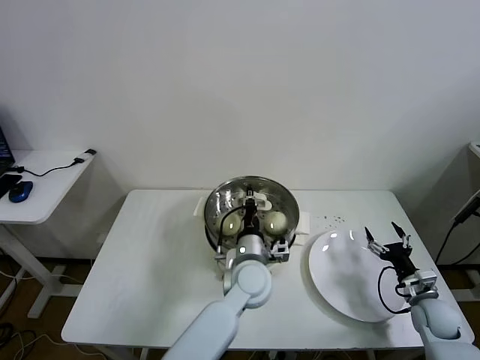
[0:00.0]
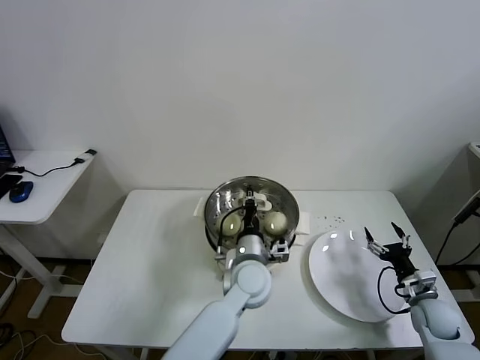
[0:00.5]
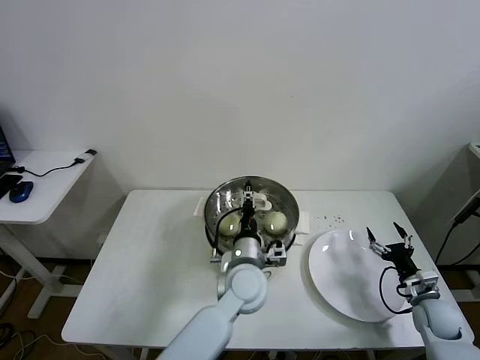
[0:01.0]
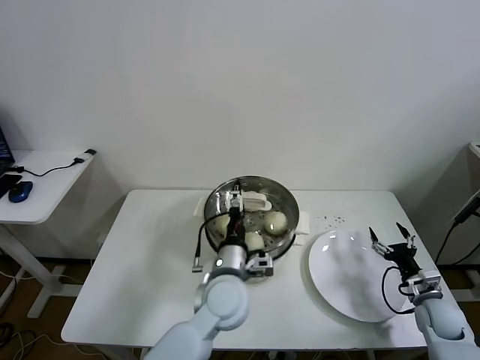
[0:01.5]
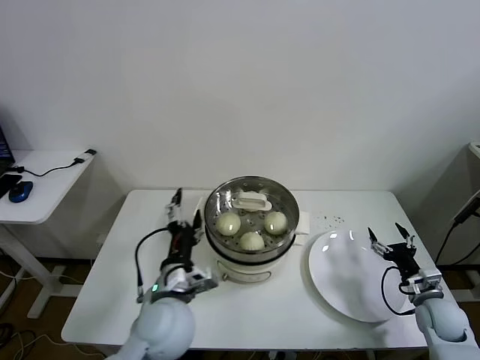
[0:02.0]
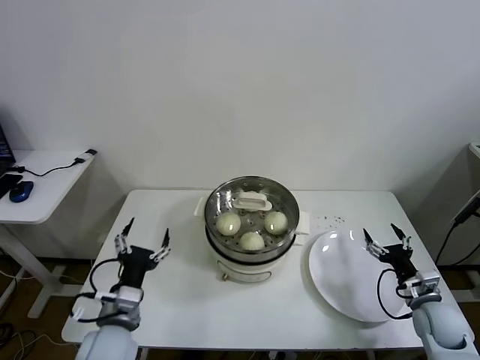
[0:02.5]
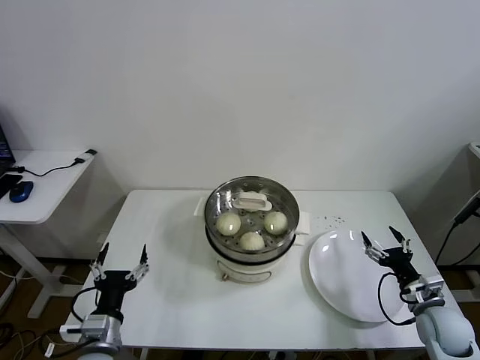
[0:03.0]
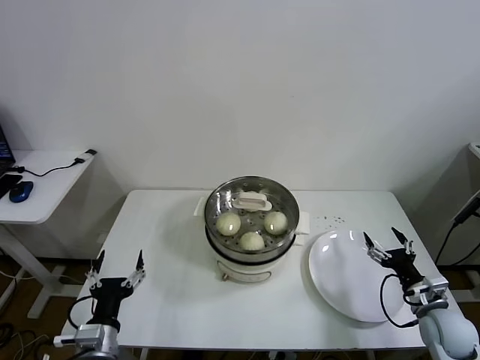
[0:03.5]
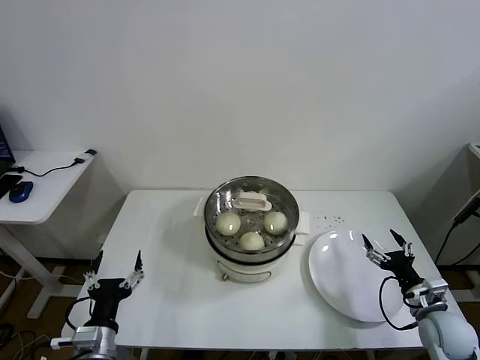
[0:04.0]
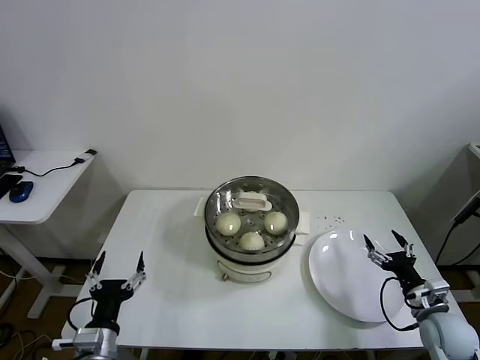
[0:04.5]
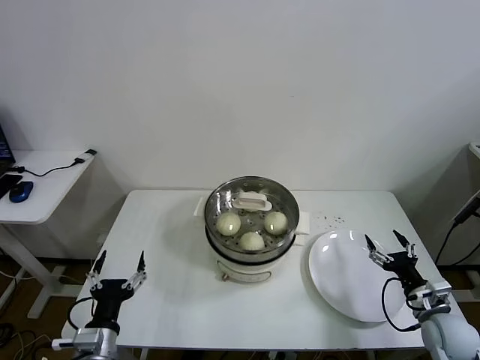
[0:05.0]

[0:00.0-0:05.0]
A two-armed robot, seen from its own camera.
Task of the whole recording: take steamed baozi put them in steamer.
0:00.0 to 0:02.5: The left gripper travels to the left and backward by roughly 30 cm, and opens up.
0:02.5 to 0:05.0: The left gripper shifts approximately 10 cm backward and downward.

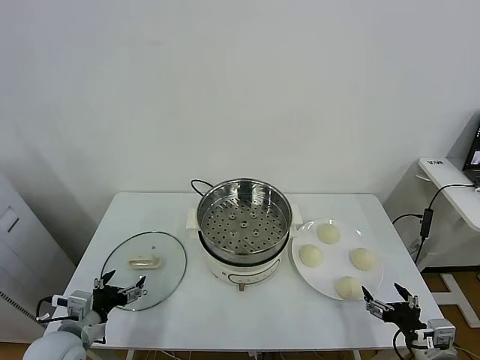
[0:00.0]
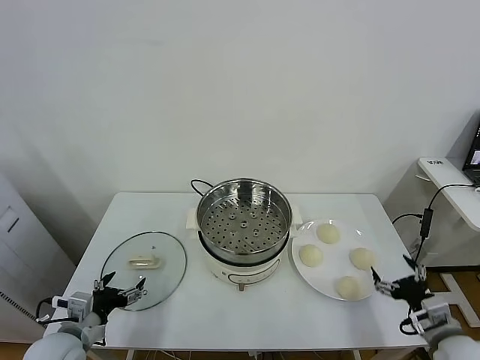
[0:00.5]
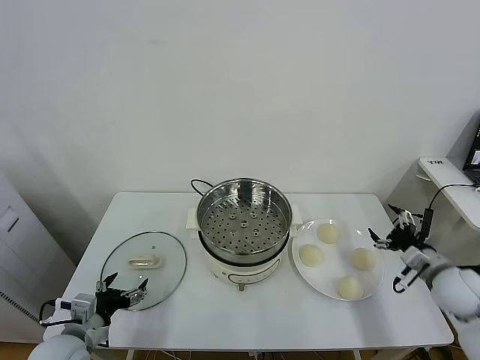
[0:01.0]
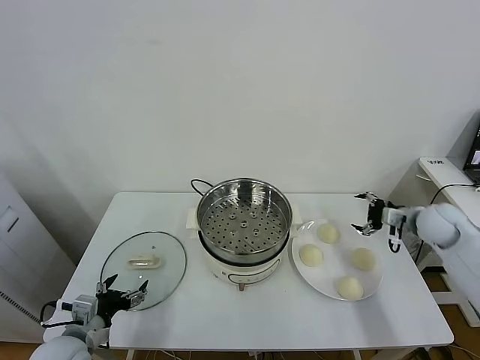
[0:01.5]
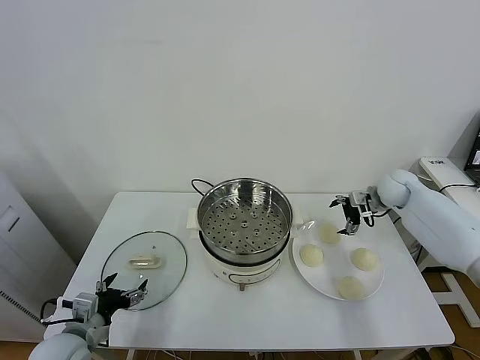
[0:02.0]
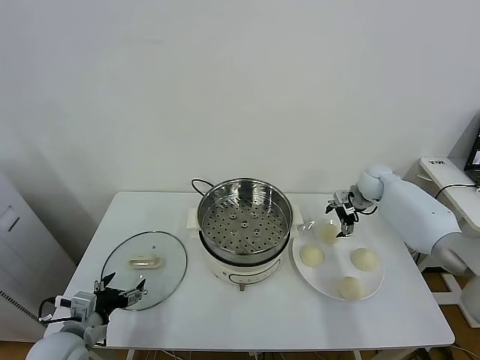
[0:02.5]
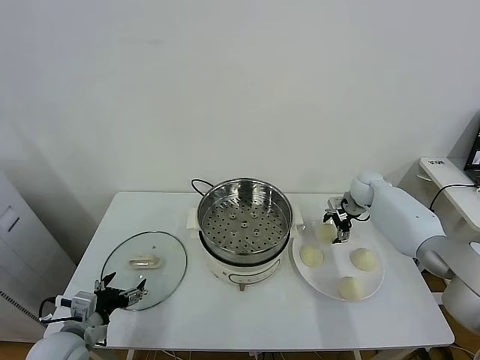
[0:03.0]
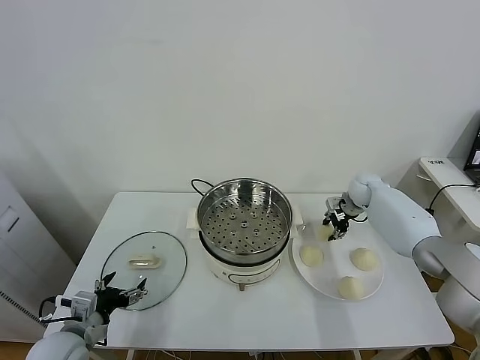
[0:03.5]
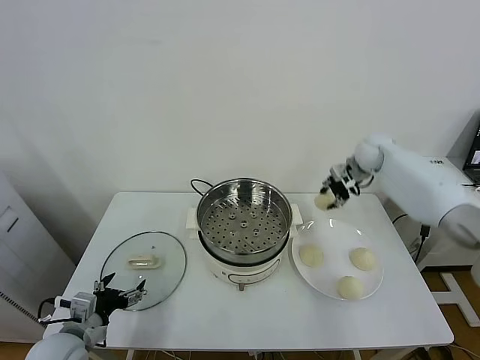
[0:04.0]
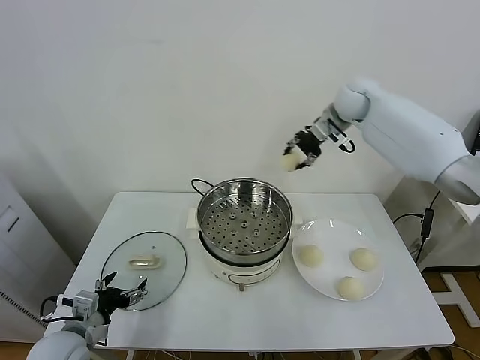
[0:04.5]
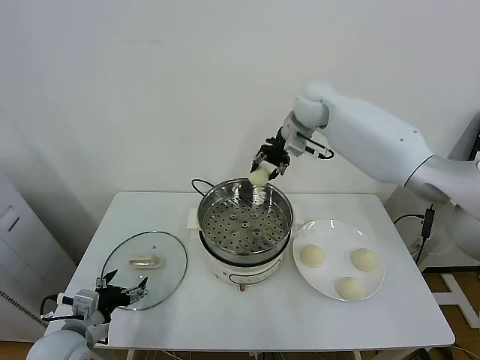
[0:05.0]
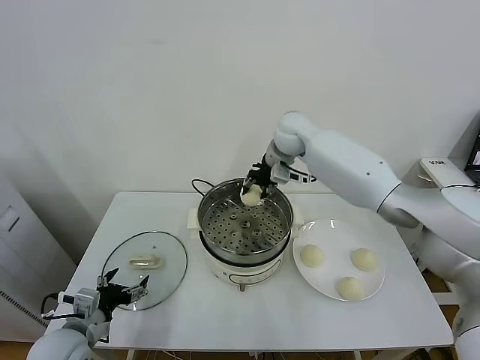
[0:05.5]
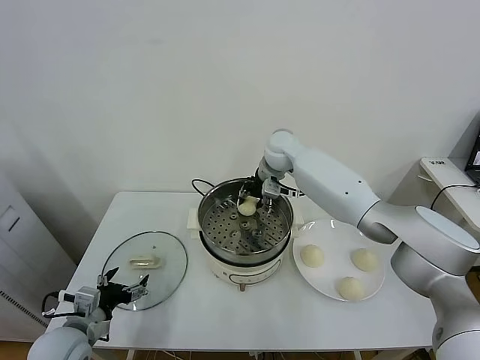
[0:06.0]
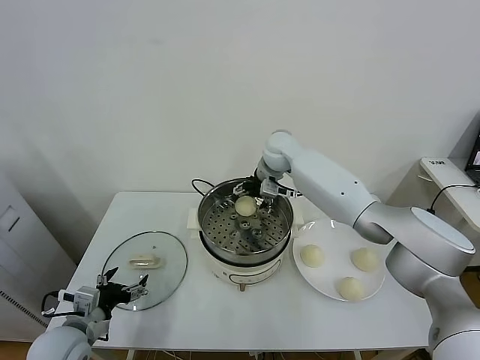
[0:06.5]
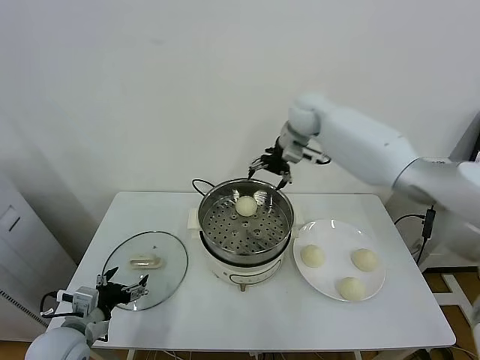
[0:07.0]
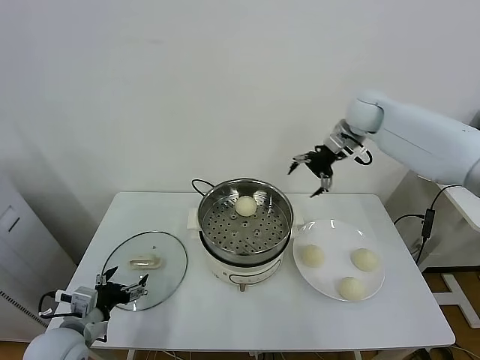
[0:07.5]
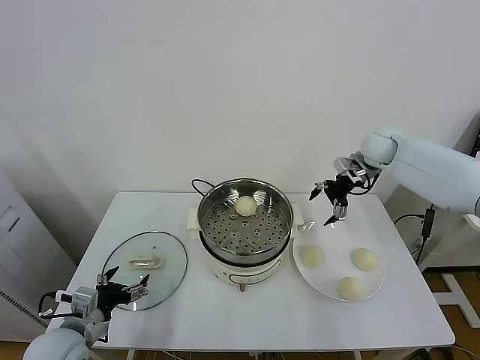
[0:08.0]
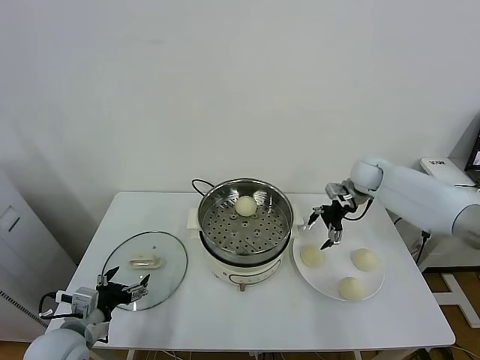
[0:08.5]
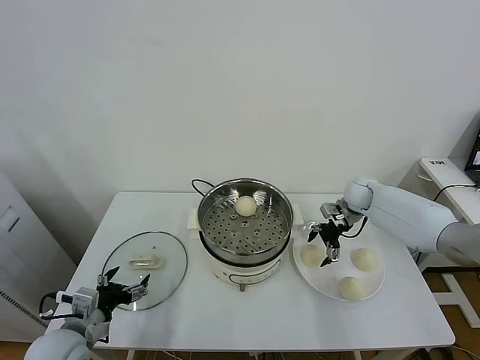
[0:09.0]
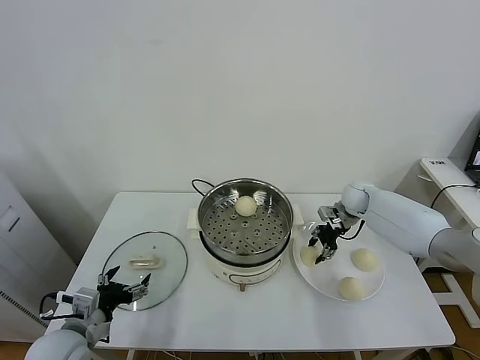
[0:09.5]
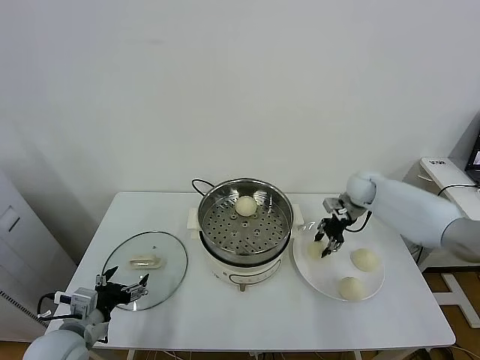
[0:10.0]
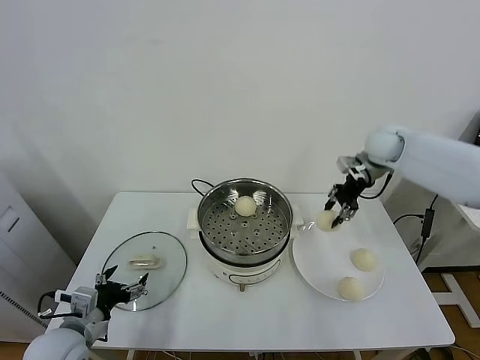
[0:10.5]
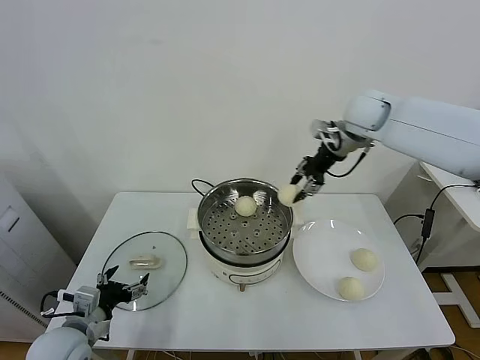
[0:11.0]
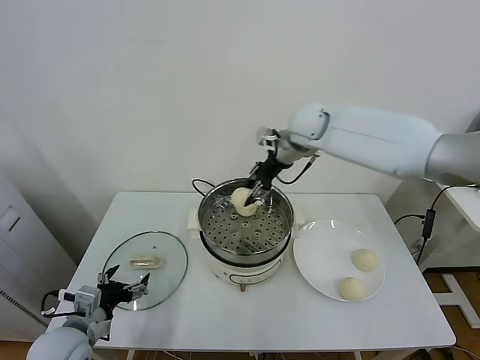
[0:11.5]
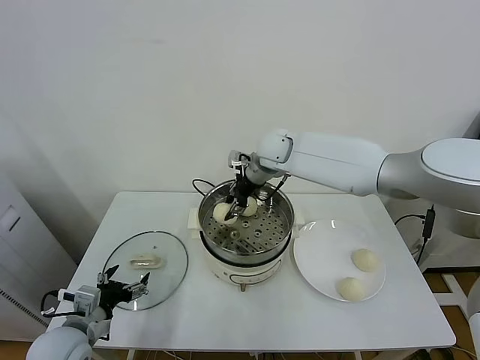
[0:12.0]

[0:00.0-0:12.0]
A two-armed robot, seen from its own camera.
Task of the whole recording: take steamed baozi put them in steamer.
Step, 0:00.0 to 0:03.0: Grasp the baozi in the plate with right gripper.
Step, 0:03.5 to 0:06.5: Place the baozi on the steamer with right gripper.
Step, 0:07.0 to 0:09.0: Grasp the baozi in the plate with right gripper.
0:02.0 to 0:04.0: The right gripper moves upward, to the left and forward, approximately 10 cm, and closes up.
0:04.0 to 0:06.0: The right gripper is displaced to the left by about 25 cm.
0:06.0 to 0:08.0: The right gripper travels to the right by some 25 cm, and opens its fingers.
0:08.0 to 0:10.0: The right gripper travels downward by some 10 cm, and closes.
0:10.0 to 0:12.0: The right gripper goes some 30 cm to the left and upward.

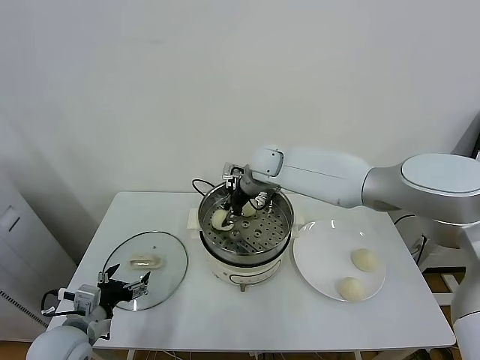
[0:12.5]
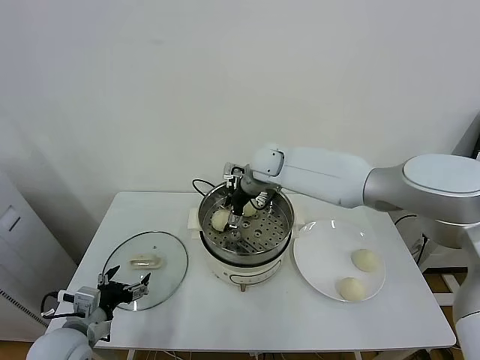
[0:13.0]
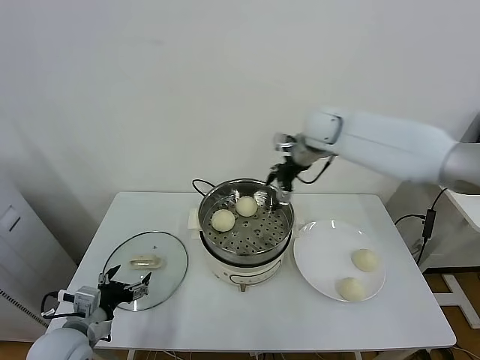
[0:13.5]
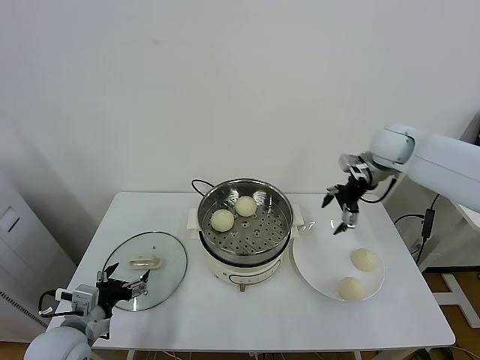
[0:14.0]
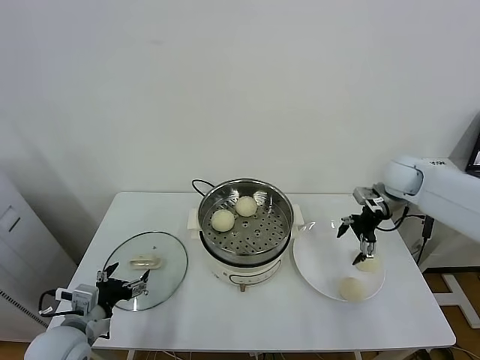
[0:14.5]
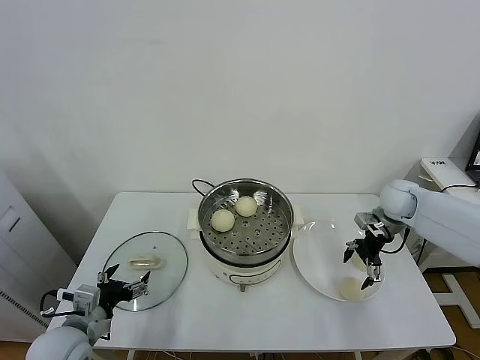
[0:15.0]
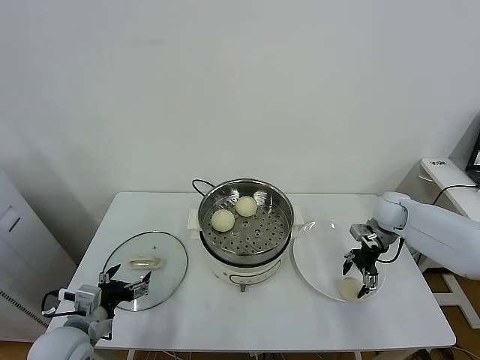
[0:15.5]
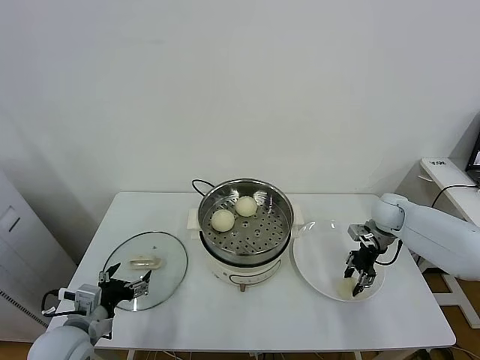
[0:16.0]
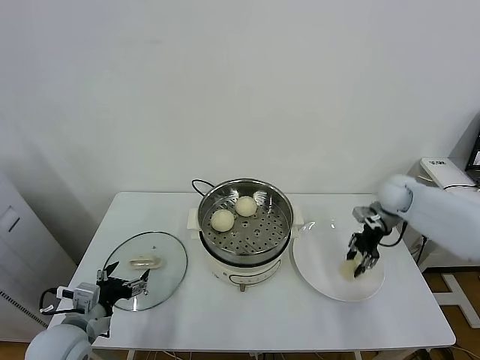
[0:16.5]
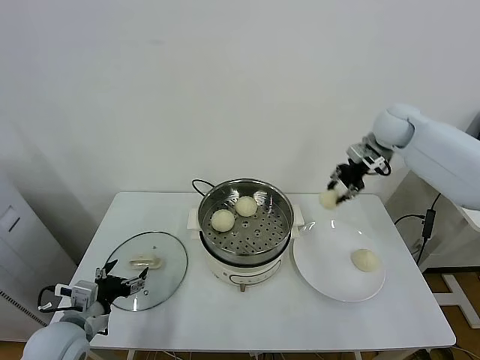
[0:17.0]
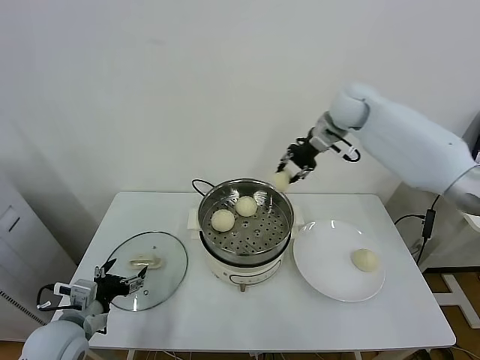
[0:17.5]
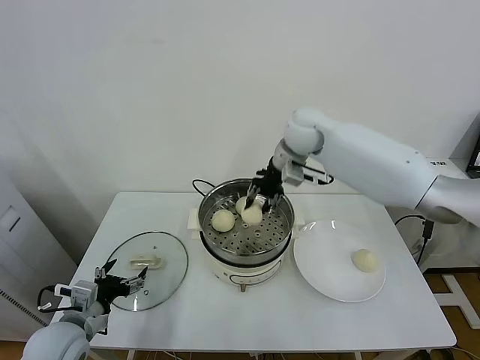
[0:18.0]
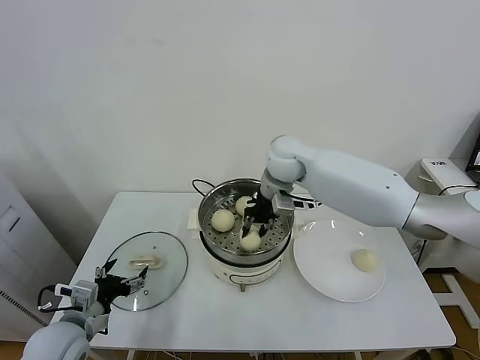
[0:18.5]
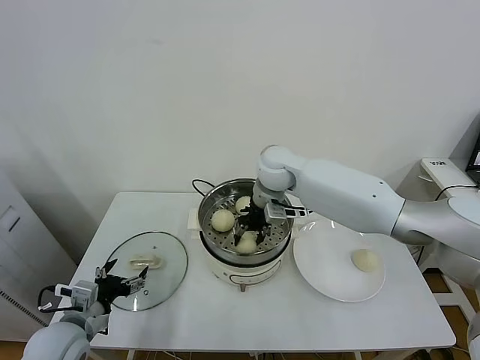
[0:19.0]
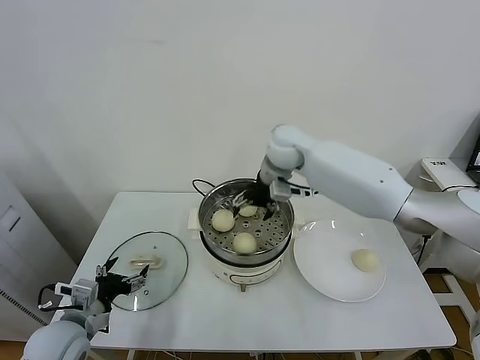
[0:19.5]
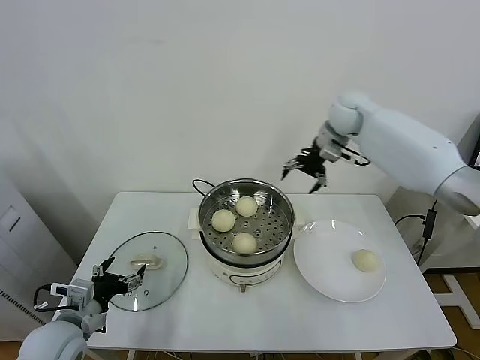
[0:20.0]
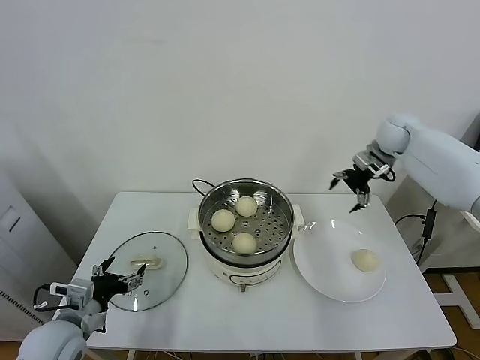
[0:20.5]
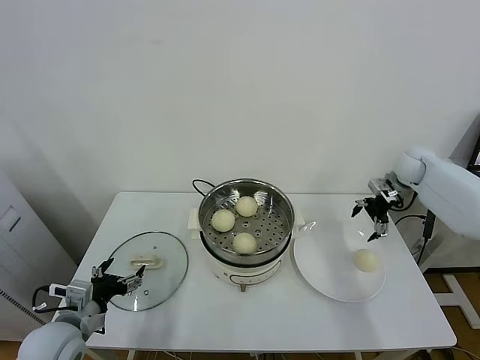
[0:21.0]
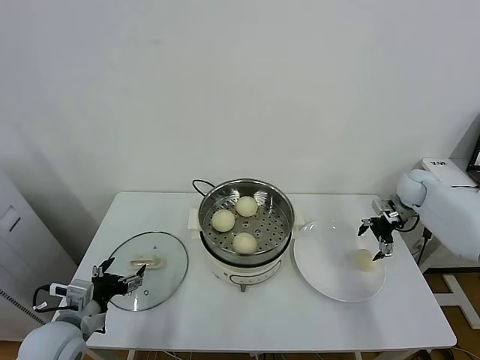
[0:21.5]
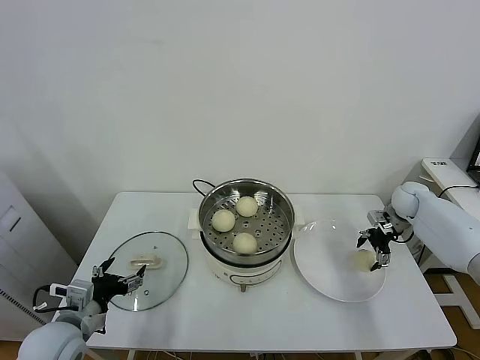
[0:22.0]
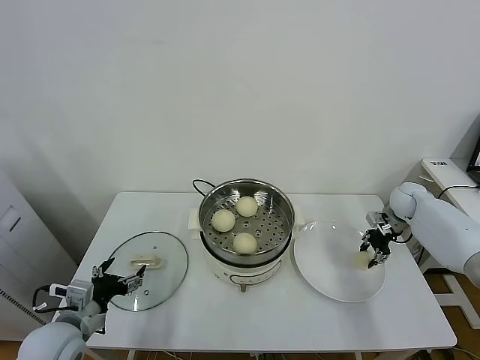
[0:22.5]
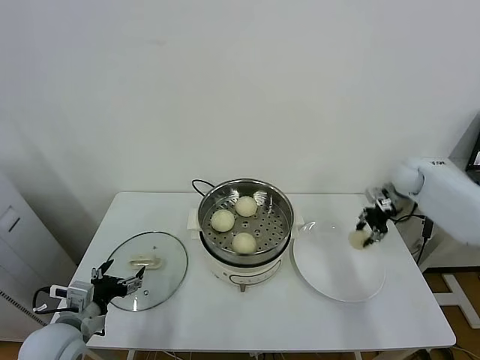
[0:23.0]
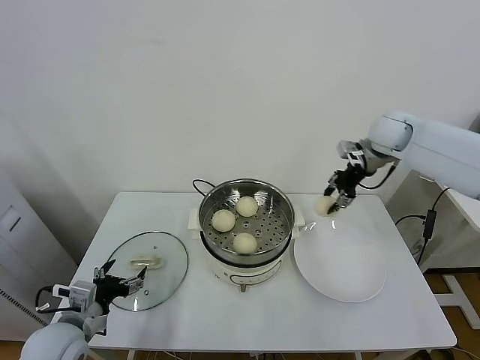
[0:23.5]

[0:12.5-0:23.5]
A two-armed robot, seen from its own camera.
Task of the whole recording: take steamed baozi put them in steamer.
Step, 0:13.5 to 0:15.5: Grasp the baozi in the plate with right gripper.
Step, 0:16.0 to 0:19.0: Place the baozi on the steamer with right gripper.
Step, 0:19.5 to 0:22.0: Grasp the baozi in the plate with right gripper.
0:12.5 to 0:14.5: The right gripper is displaced to the right by some 30 cm, and opens.
0:14.5 to 0:16.0: The right gripper moves downward, some 10 cm, and closes up.
0:16.0 to 0:18.0: The right gripper shifts approximately 35 cm to the left and upward.
0:18.0 to 0:20.0: The right gripper travels to the right and forward by about 10 cm, and opens its fingers.
0:20.0 to 0:21.5: The right gripper shifts about 30 cm to the right and downward.
0:21.5 to 0:23.5: The right gripper shifts roughly 20 cm upward and to the left, and closes.
